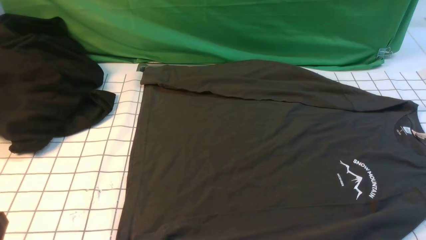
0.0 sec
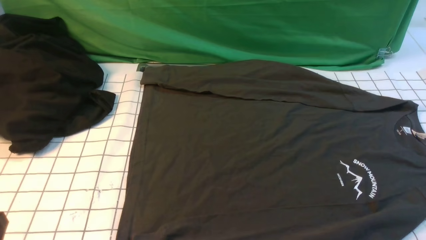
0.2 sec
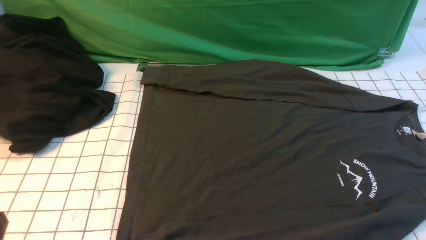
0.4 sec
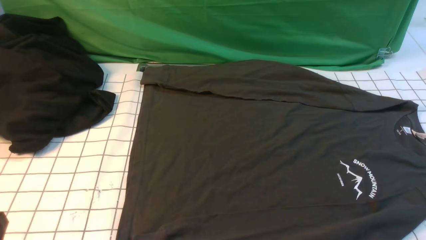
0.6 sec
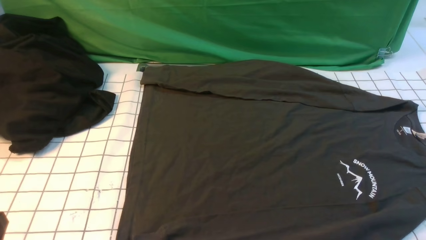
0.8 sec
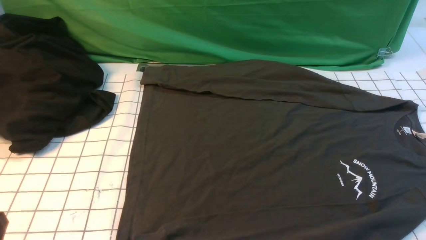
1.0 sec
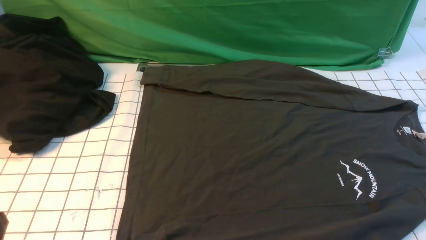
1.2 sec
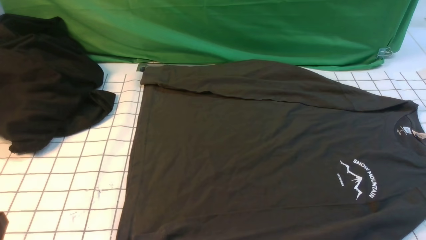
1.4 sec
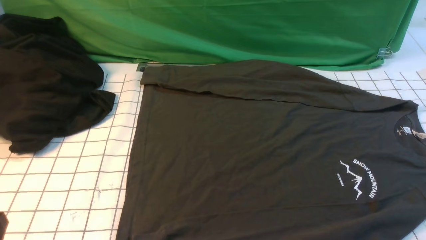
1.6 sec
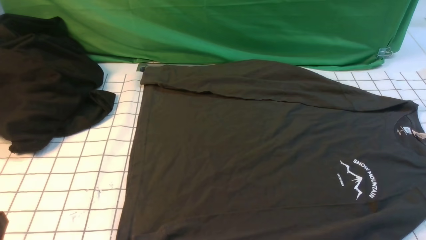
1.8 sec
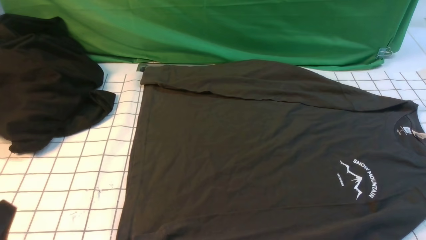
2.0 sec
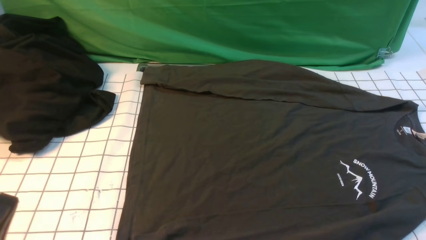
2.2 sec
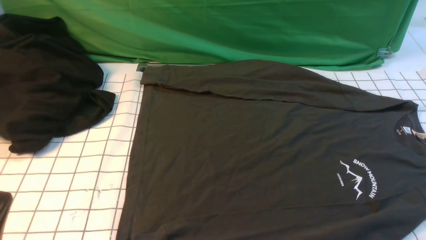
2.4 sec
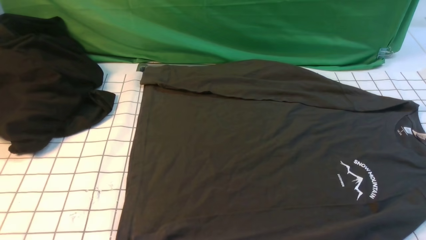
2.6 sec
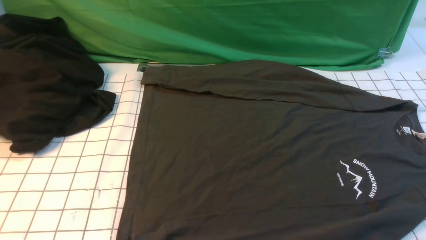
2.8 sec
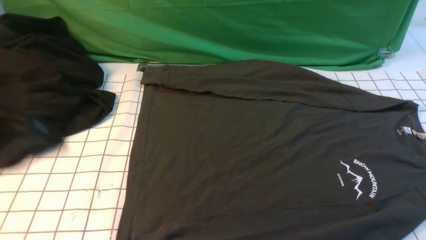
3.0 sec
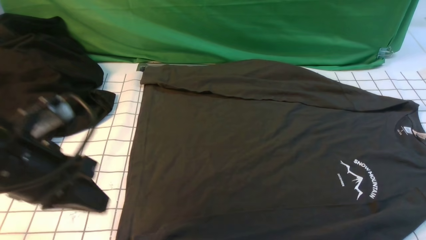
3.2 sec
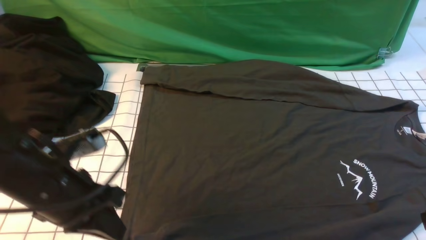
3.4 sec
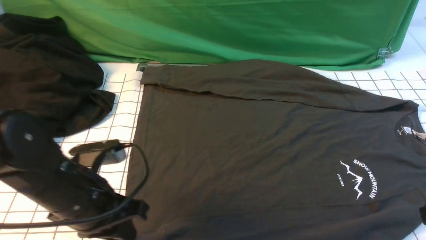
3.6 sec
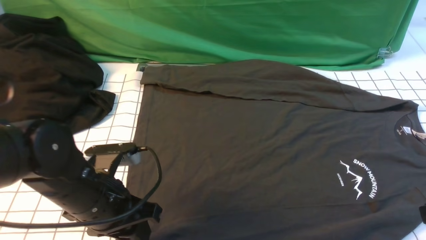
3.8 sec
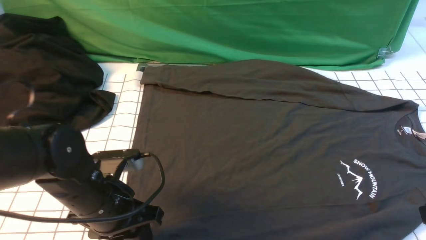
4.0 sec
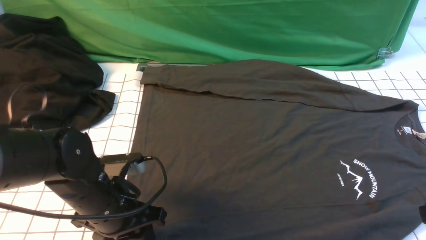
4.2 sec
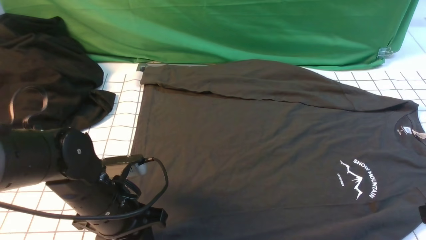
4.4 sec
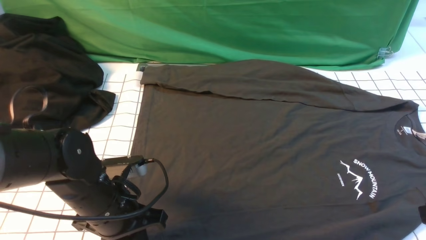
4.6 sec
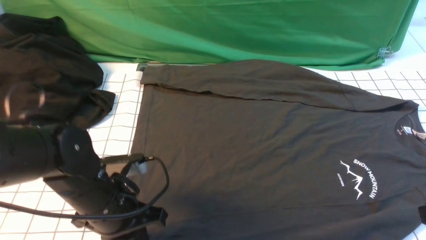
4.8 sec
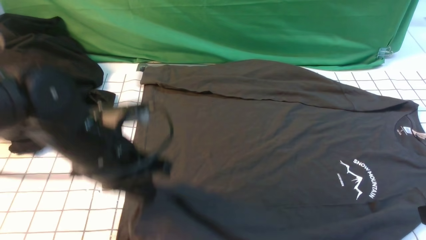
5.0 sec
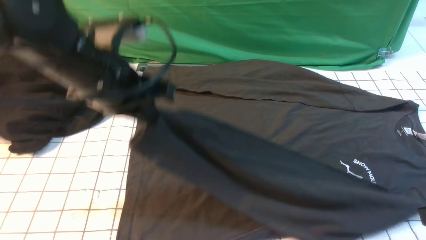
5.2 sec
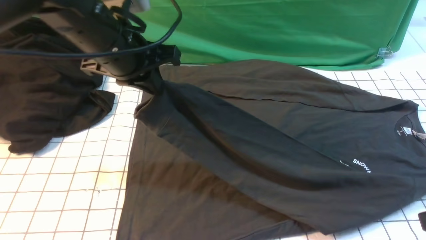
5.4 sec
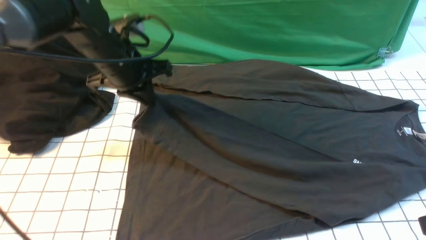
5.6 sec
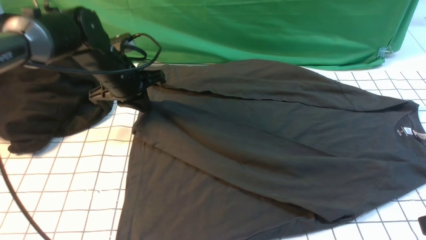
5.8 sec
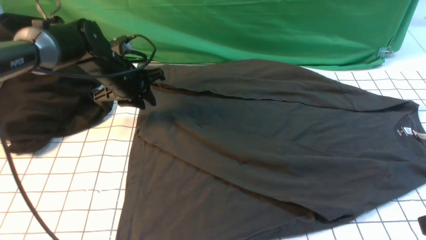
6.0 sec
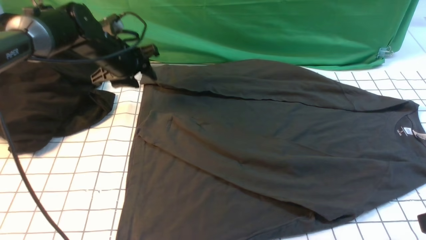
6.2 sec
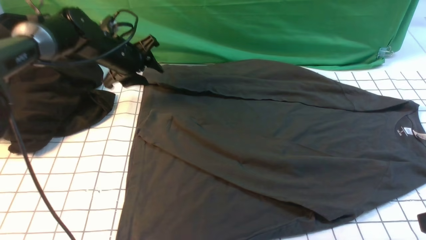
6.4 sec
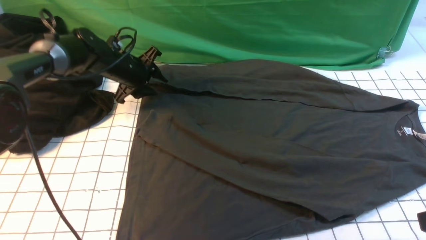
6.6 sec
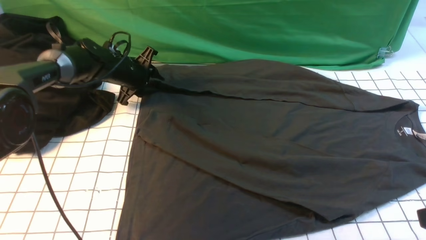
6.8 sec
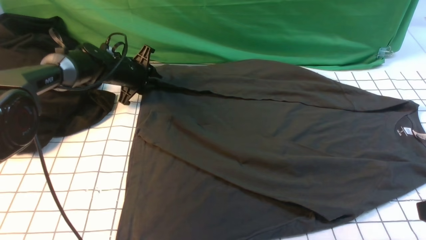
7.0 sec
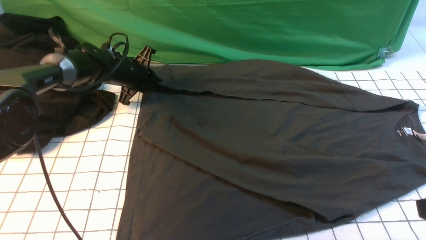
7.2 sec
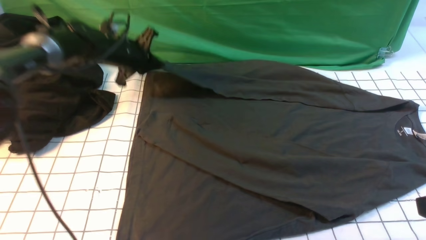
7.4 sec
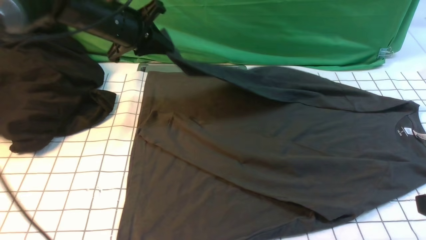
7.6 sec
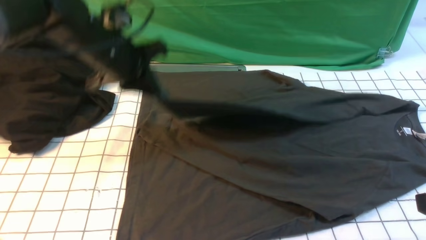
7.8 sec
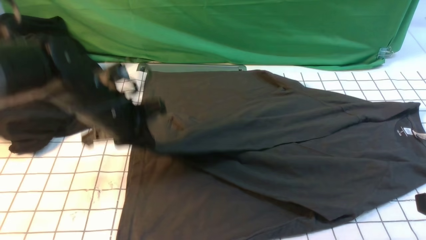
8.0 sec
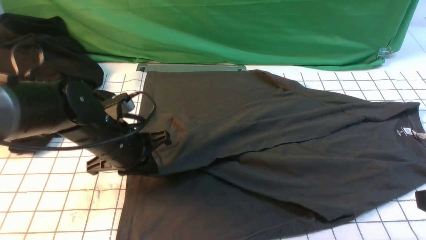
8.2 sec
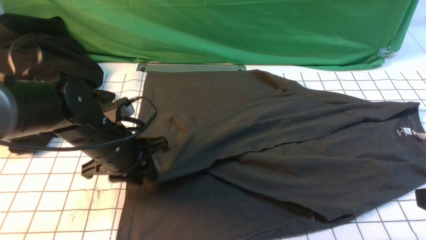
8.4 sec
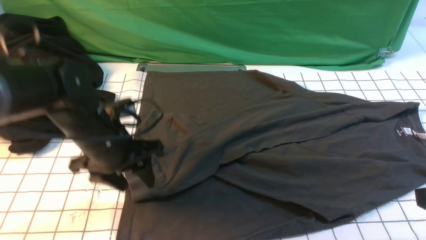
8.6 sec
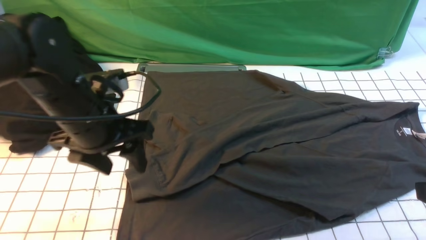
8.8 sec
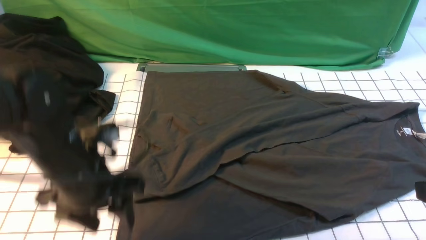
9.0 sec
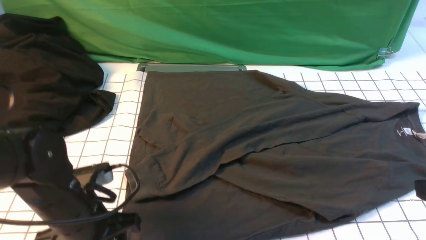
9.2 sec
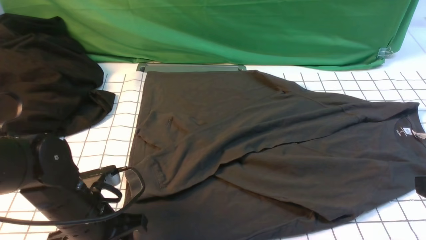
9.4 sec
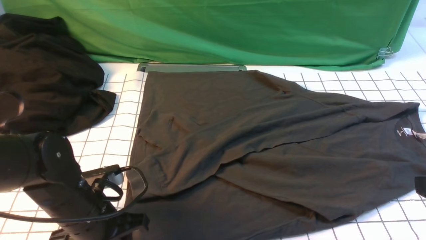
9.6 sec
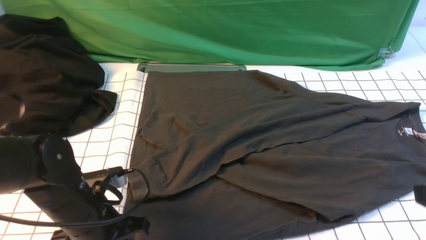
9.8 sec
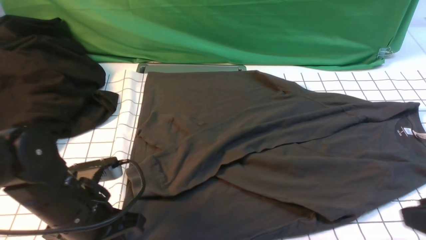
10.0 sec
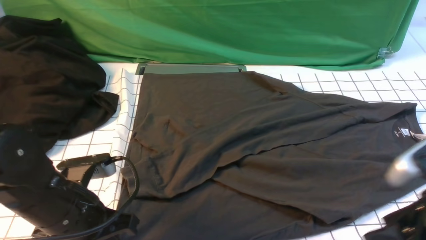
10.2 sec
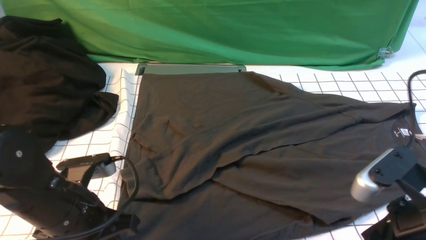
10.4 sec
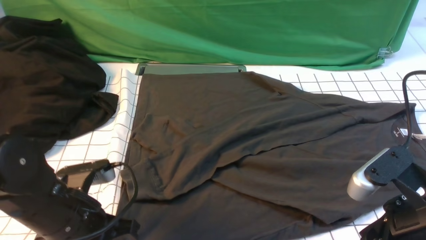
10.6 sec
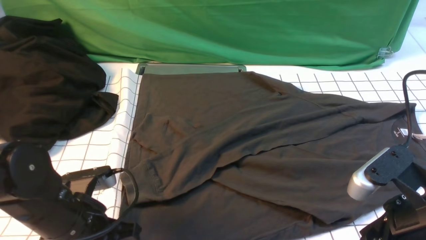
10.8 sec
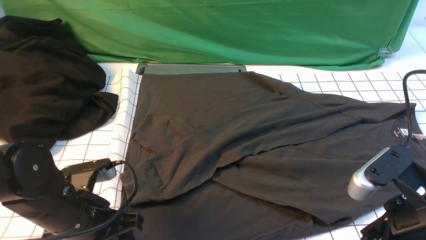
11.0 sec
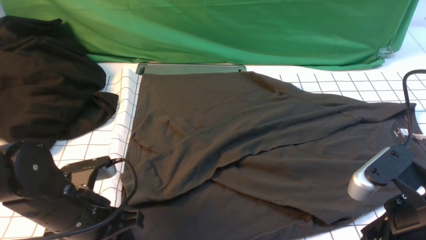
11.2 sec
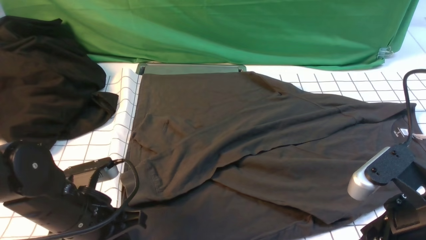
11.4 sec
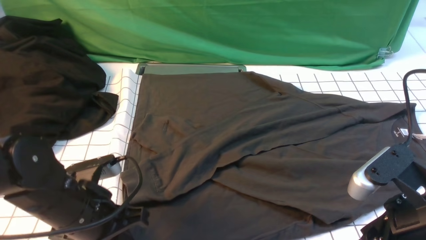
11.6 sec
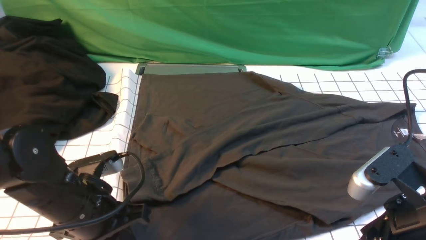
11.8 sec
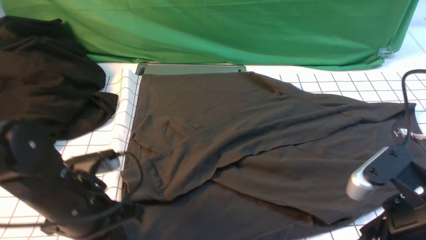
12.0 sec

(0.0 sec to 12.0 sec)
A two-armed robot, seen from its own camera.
Step, 0.0 sec - 4.6 sec: use the left arm to clamp the cuff closest to it.
Step, 4.8 sec - 5.8 sec: use the left arm to drag and place the cuff at the centered position on the left edge of the fabric.
Step, 6.0 sec - 7.0 sec: use the left arm to clamp the cuff farthest from it.
Step, 7.4 sec - 8.4 sec: use the left arm to drag and drop the cuff onto the cuff closest to the left arm.
0.0 sec - 1.6 sec: Neither gripper changes place.
1.6 sec - 3.0 sec: The left gripper moves upward and forward, approximately 15 cm.
3.0 sec - 4.4 sec: The left gripper shifts some 20 cm downward, to the right and forward, and opens.
4.4 sec - 6.0 sec: The left gripper heads forward, covering about 25 cm, and closes, then reopens.
6.0 sec - 7.6 sec: The left gripper heads upward, covering some 5 cm, and closes.
7.6 sec - 9.0 sec: The left gripper is displaced backward by about 20 cm, and opens.
9.0 sec - 10.4 sec: The right gripper travels to the left by some 5 cm, and opens up. Meanwhile the left gripper changes place by approximately 5 cm, and closes up.
10.4 sec - 12.0 sec: The left gripper opens, then closes again.

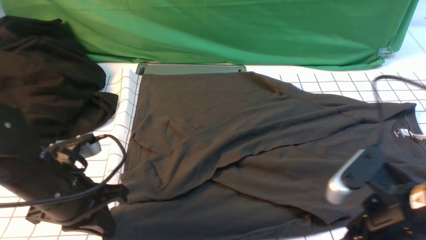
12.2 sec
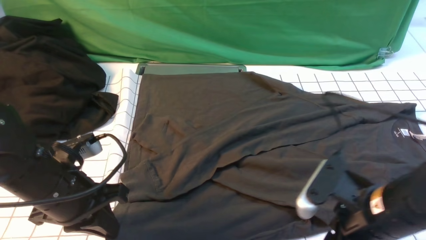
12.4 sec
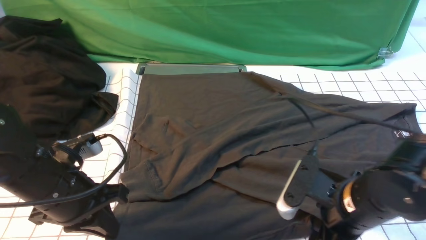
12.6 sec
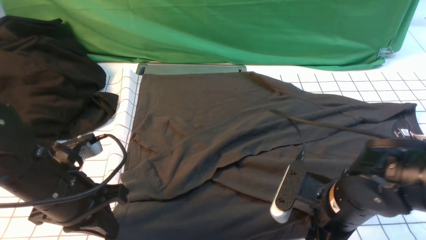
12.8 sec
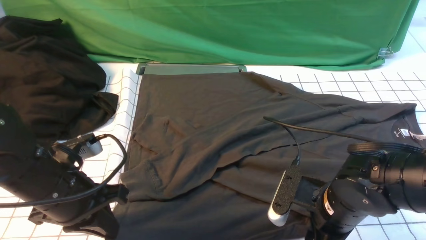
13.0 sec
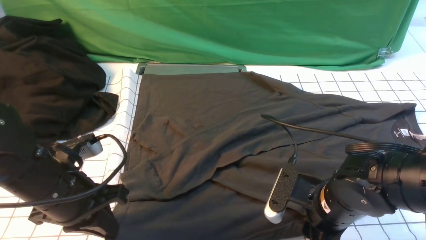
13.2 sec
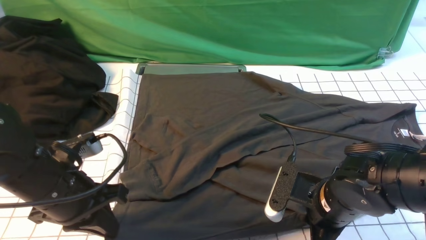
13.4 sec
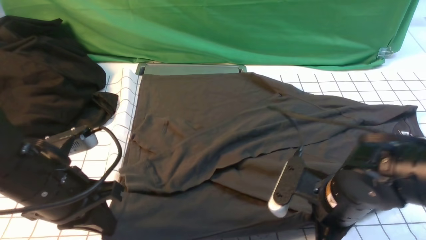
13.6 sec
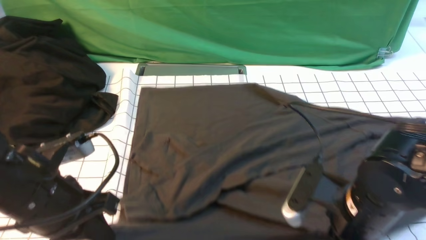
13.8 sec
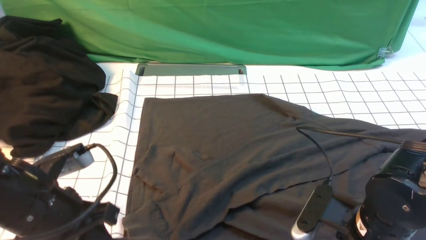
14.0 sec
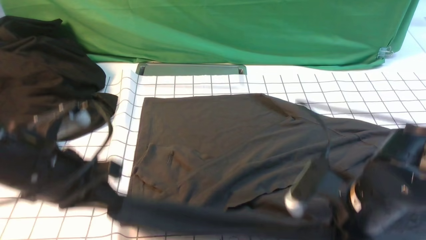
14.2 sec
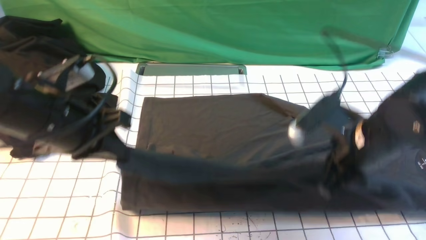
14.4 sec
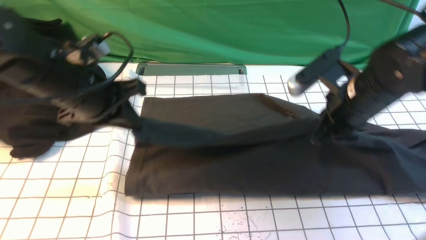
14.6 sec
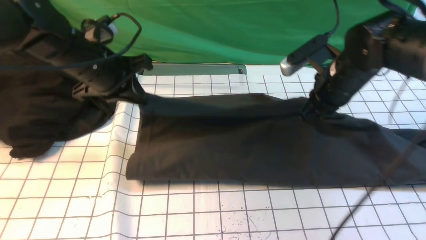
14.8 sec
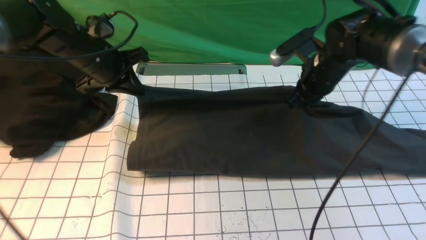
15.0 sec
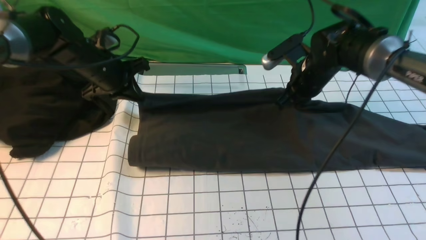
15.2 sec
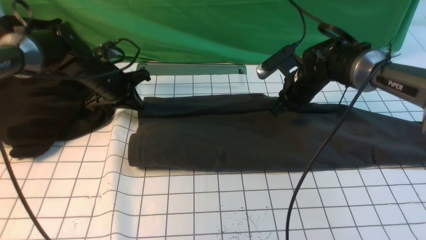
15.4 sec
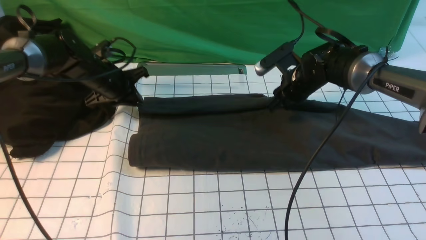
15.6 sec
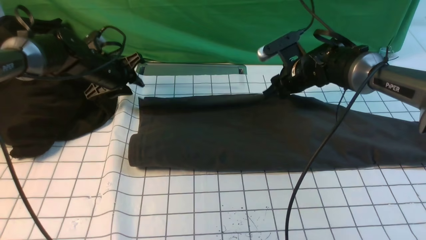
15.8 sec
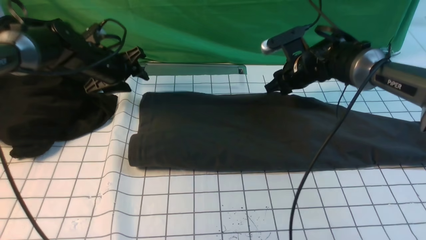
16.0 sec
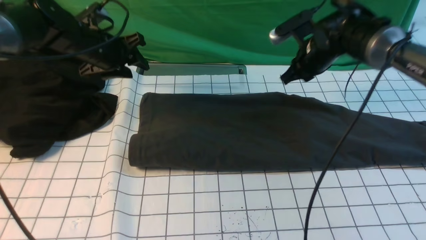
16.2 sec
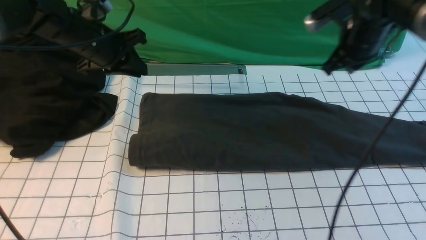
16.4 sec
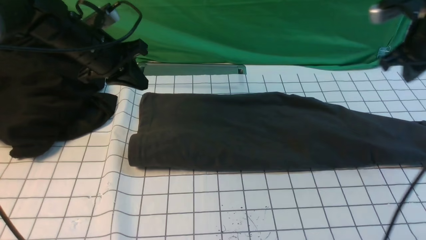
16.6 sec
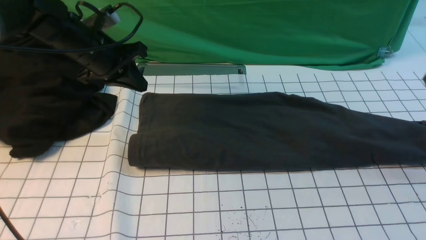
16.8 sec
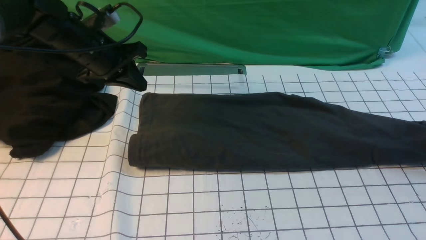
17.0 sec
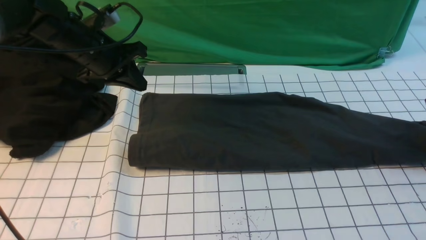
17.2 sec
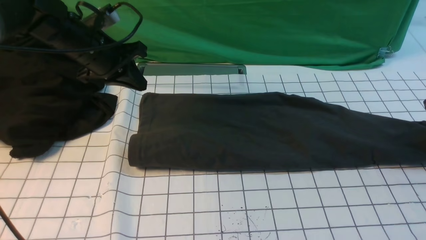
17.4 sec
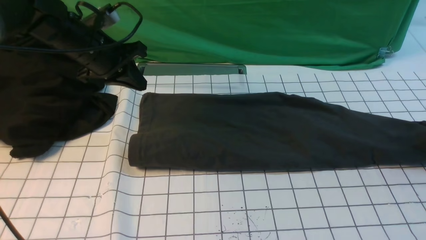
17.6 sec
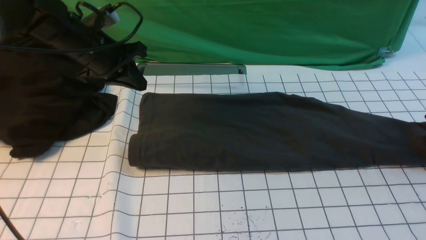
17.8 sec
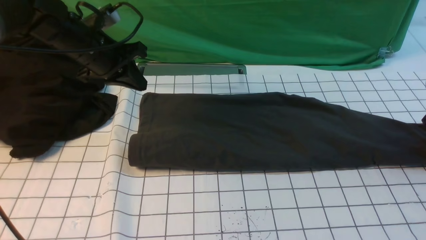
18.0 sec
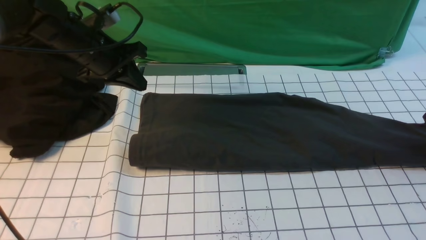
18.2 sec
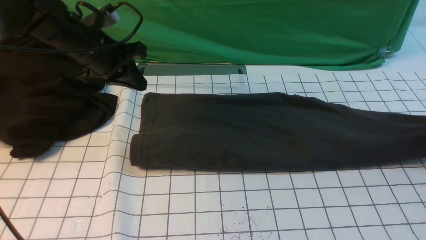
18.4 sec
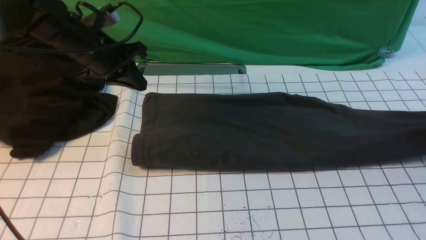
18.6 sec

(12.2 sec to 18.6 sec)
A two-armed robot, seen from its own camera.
Step, 13.4 sec - 16.0 sec: use both arms to drag the lower edge of the fabric forward and fold it over the upper edge.
12.2 sec - 13.8 sec: The right gripper closes up.
13.8 sec - 15.4 sec: The grippers both shift forward by about 30 cm.
15.4 sec - 17.0 sec: The left gripper is displaced upward by approximately 10 cm, and opens, then closes again, while the right gripper goes about 25 cm to the right.
17.0 sec - 18.6 sec: The grippers make only small movements.
